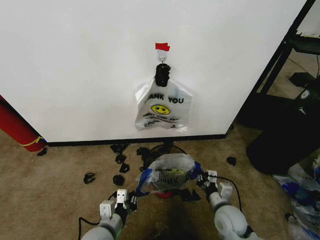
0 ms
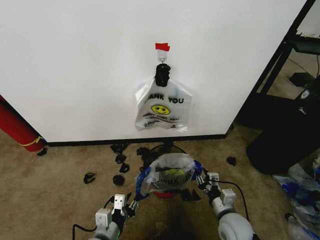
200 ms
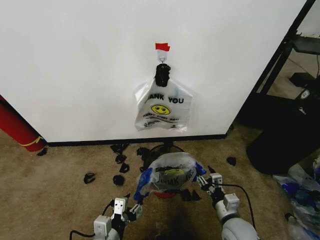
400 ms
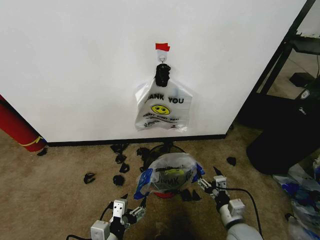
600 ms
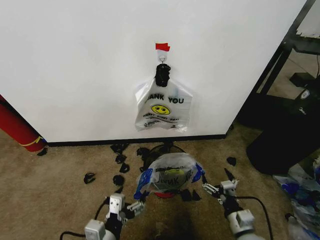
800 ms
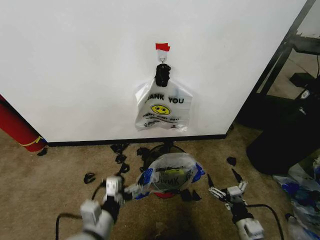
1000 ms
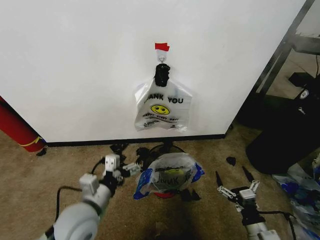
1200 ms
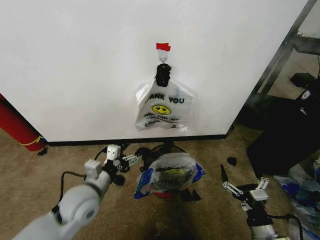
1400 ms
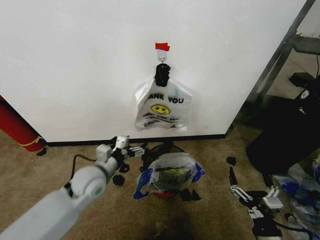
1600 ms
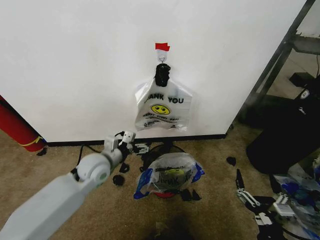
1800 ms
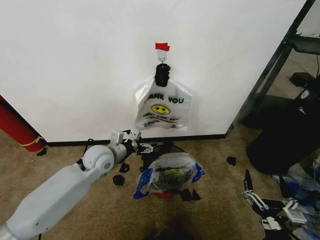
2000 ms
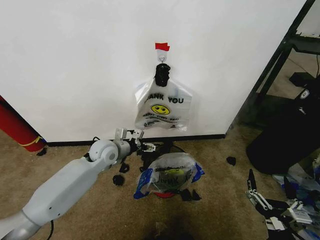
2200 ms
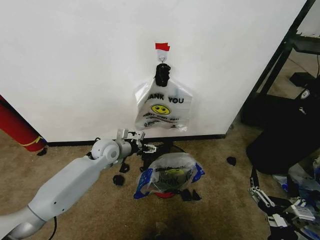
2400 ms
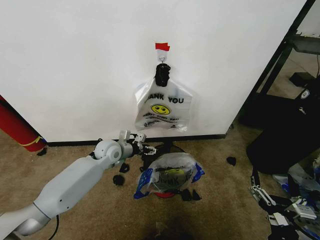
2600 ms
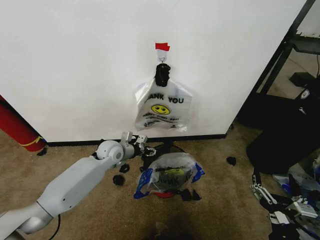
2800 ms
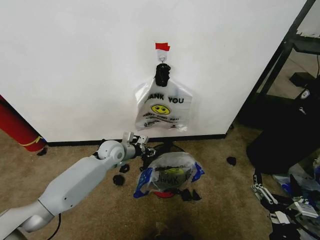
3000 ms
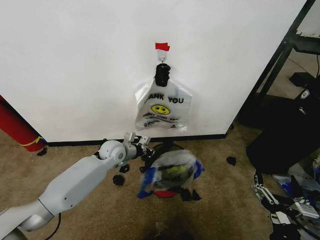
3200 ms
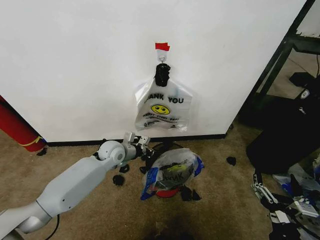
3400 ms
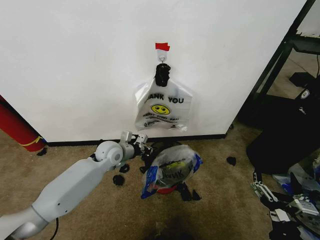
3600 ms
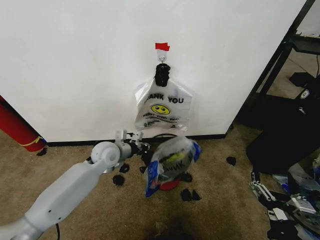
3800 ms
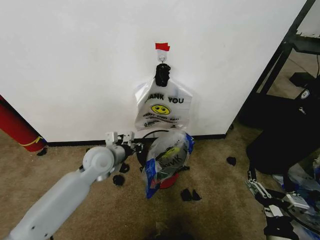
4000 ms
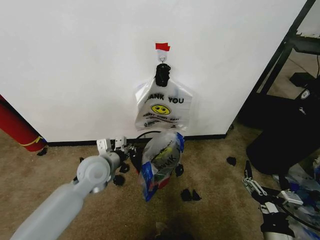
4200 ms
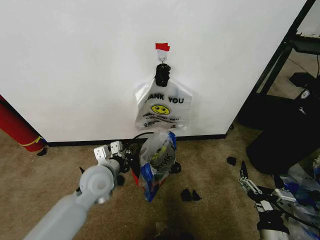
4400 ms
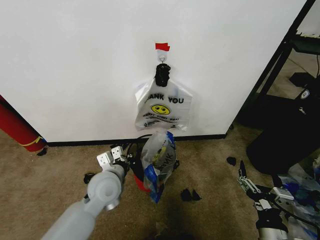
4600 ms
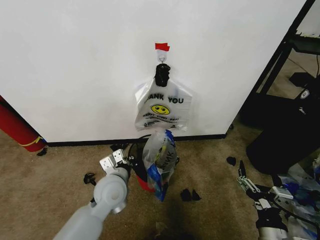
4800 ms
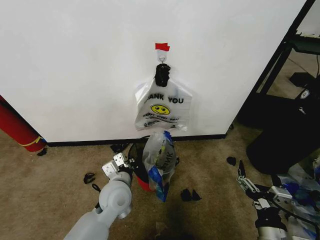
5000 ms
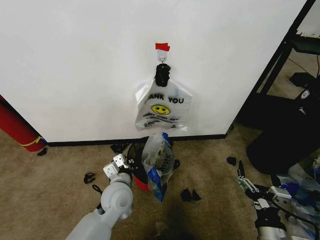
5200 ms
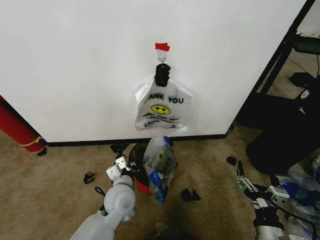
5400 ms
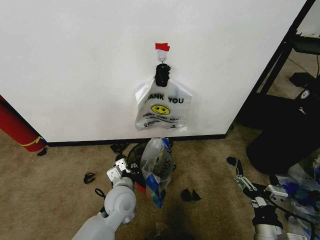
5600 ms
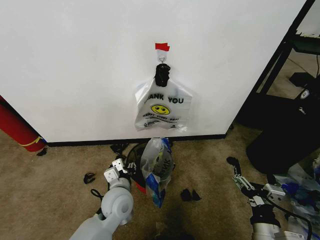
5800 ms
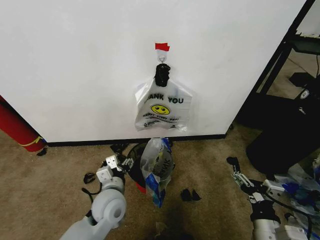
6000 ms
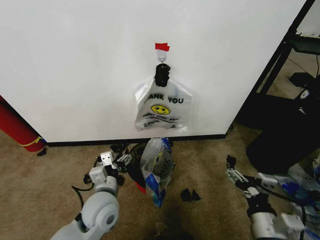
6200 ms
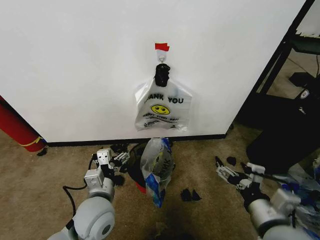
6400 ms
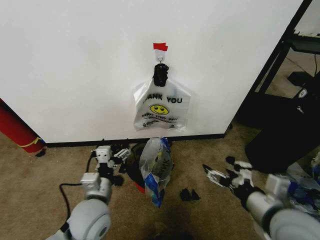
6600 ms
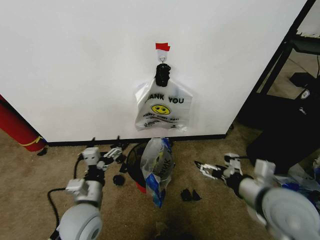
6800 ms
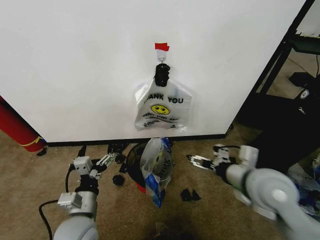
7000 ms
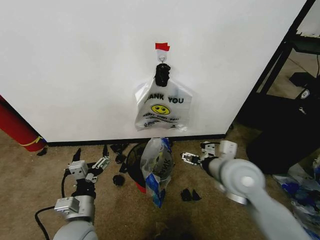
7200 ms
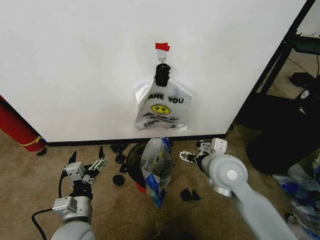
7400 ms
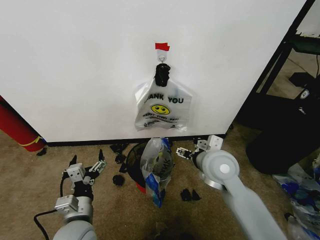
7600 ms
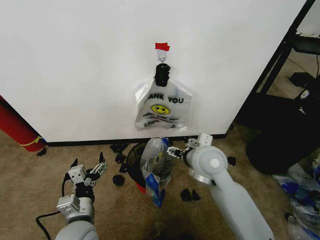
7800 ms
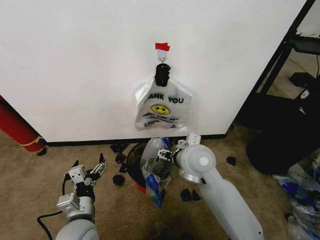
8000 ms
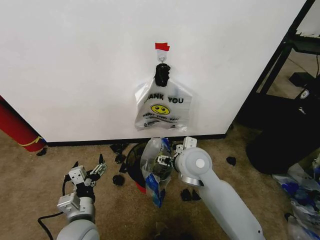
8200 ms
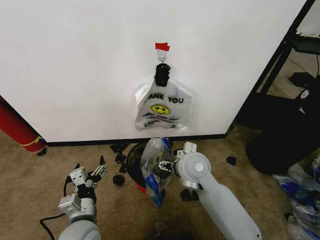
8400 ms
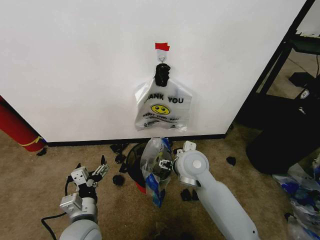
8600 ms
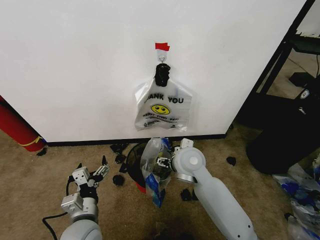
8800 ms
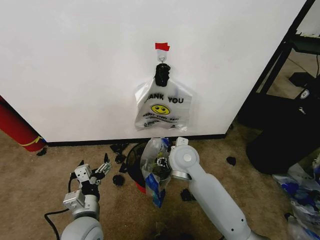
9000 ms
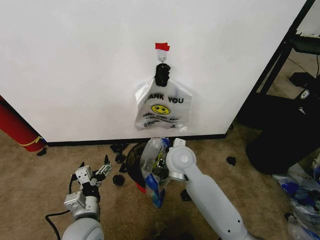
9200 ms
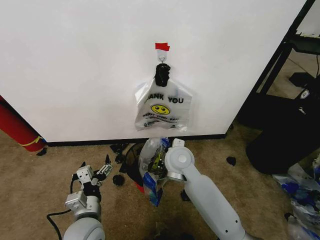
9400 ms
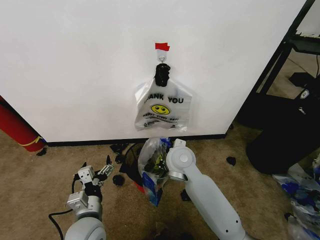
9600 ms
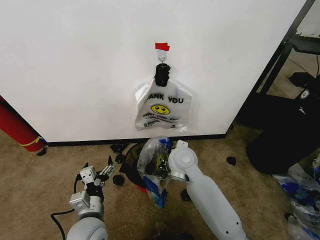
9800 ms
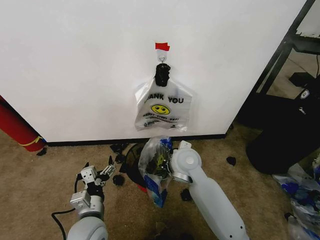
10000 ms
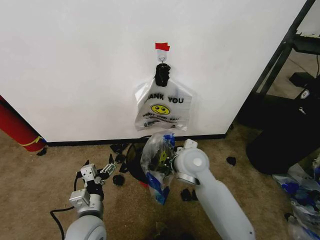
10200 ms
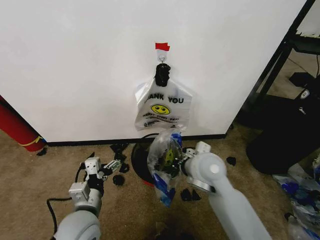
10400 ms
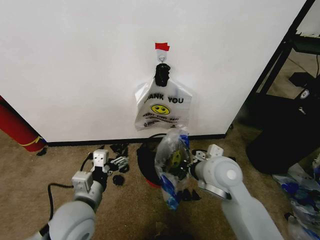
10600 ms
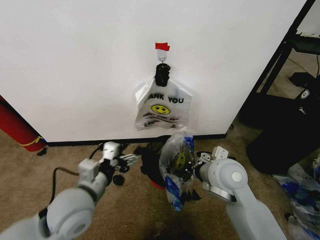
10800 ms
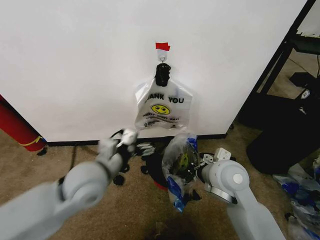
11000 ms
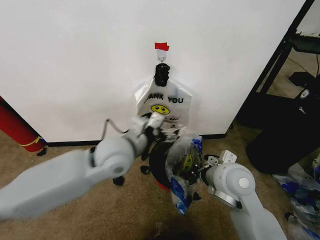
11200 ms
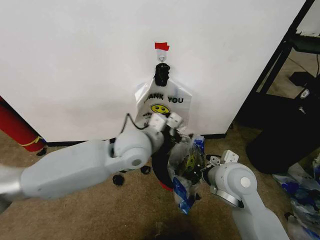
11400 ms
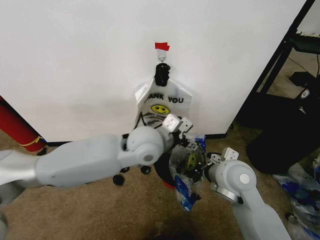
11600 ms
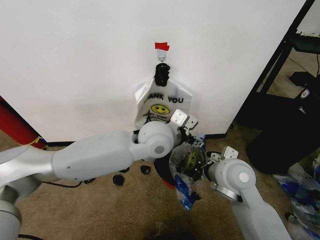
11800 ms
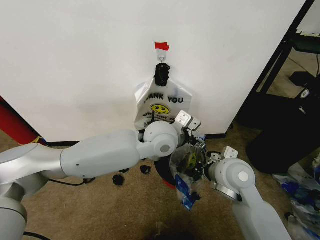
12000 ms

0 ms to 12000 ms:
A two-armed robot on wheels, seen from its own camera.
Task of the whole recording: Pick up the garbage bag from the wall and place it over the trash bin.
0 ms to 1600 ms: The right gripper heads backward, covering about 15 cm, and opens up, while the left gripper travels forward and upward by approximately 15 cm, and opens.
1600 ms to 3000 ms: The right gripper ends up approximately 5 cm from where it was. The left gripper is displaced forward by about 15 cm, and closes up.
3000 ms to 4400 ms: The left gripper moves backward, about 15 cm.
4400 ms to 6000 ms: The left gripper travels backward and downward by some 10 cm, and opens.
6000 ms to 7600 ms: The right gripper heads forward, upward and to the left, covering some 25 cm, while the left gripper heads backward and to the left, covering some 10 cm.
7600 ms to 9000 ms: The right gripper travels to the left by approximately 10 cm.
9000 ms to 10400 ms: The right gripper shifts some 5 cm to the right, and closes up.
10400 ms to 12000 ms: The left gripper is displaced to the right, forward and upward by some 30 cm, while the right gripper is displaced to the right by approximately 5 cm.

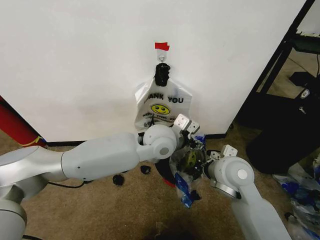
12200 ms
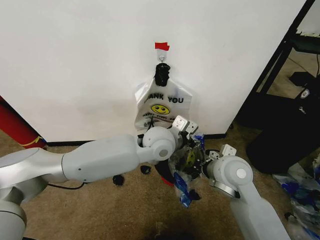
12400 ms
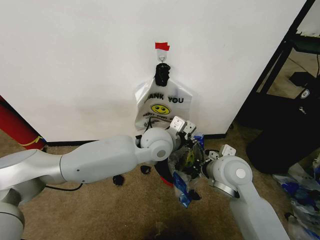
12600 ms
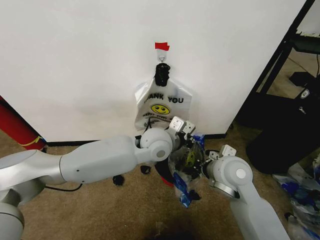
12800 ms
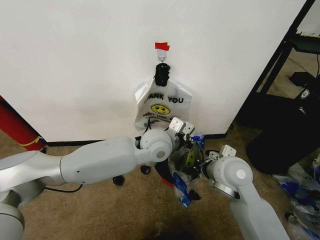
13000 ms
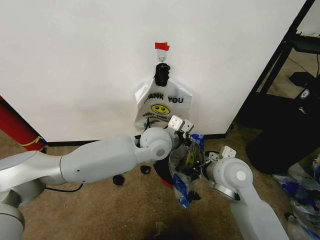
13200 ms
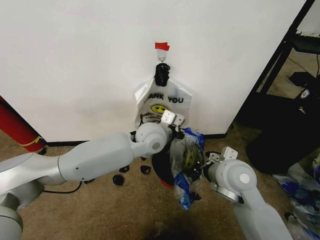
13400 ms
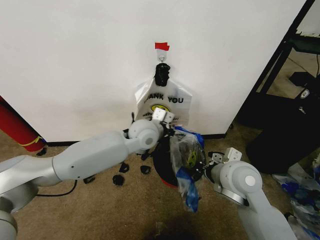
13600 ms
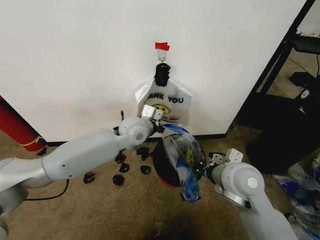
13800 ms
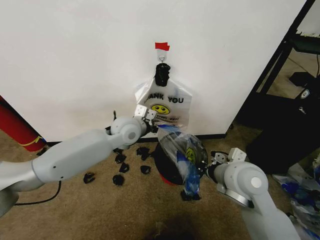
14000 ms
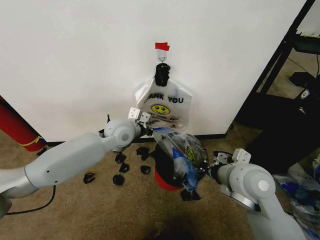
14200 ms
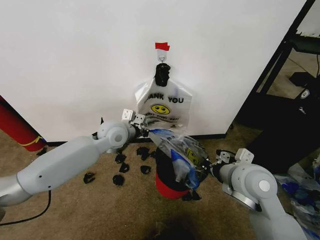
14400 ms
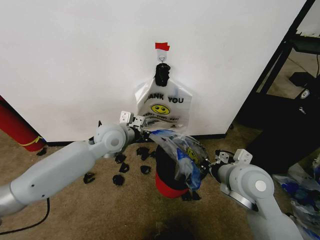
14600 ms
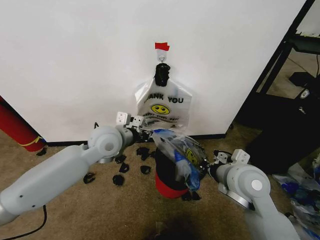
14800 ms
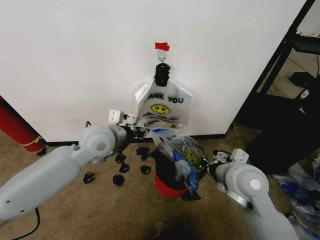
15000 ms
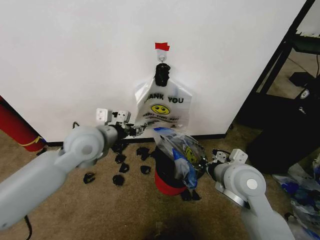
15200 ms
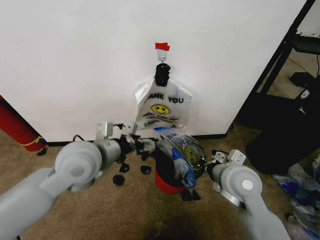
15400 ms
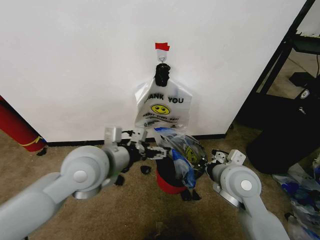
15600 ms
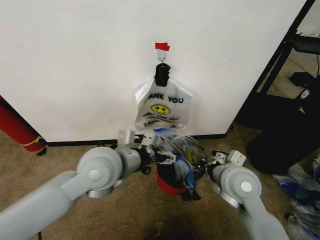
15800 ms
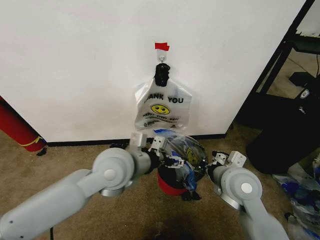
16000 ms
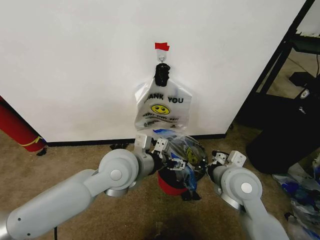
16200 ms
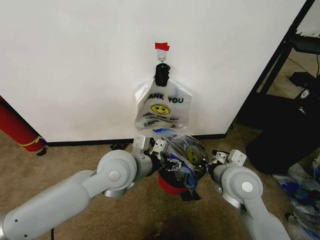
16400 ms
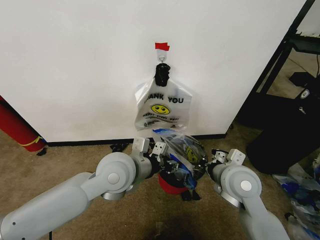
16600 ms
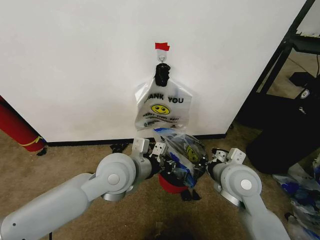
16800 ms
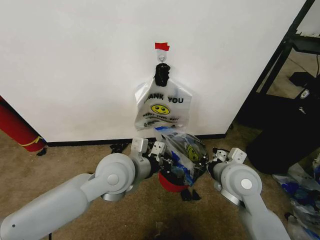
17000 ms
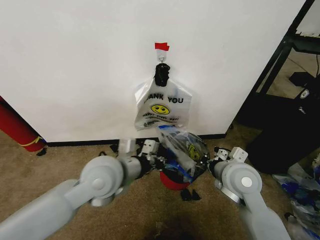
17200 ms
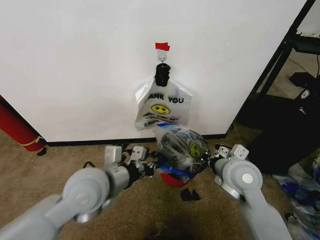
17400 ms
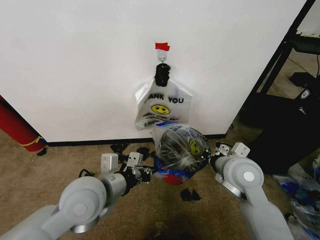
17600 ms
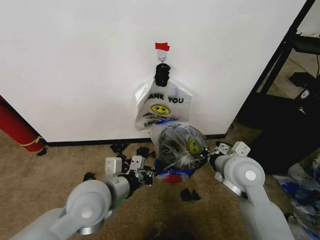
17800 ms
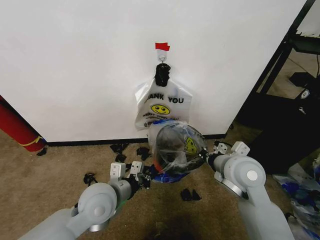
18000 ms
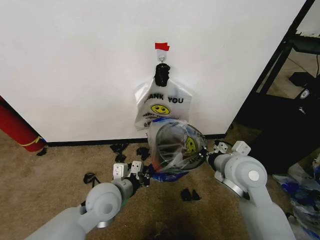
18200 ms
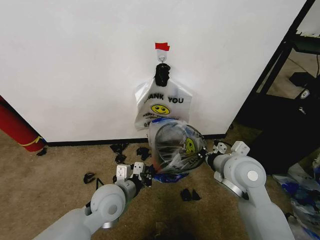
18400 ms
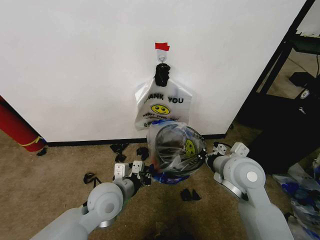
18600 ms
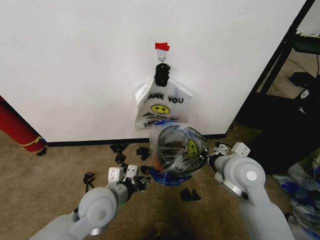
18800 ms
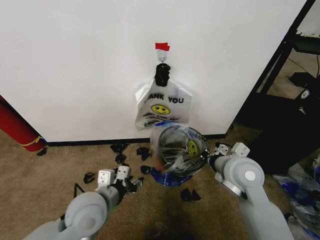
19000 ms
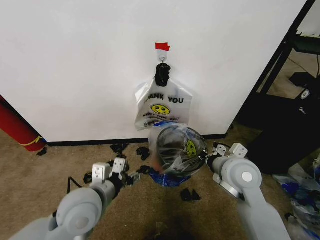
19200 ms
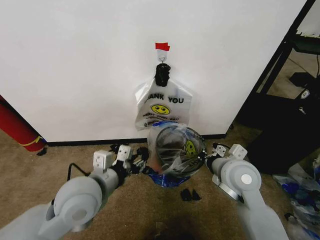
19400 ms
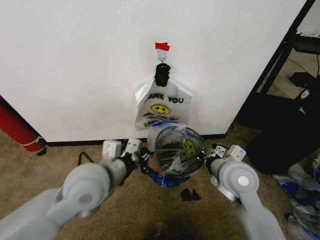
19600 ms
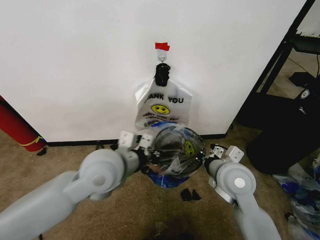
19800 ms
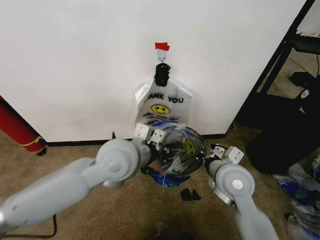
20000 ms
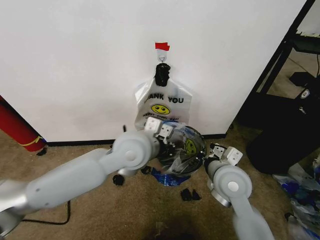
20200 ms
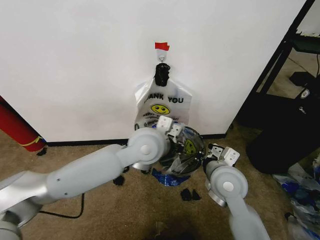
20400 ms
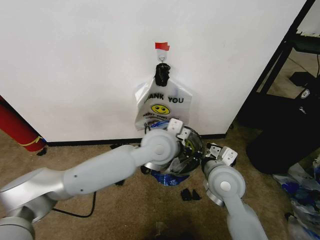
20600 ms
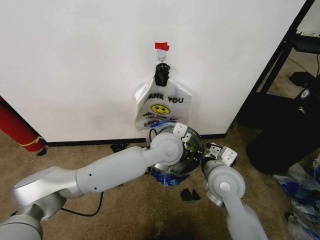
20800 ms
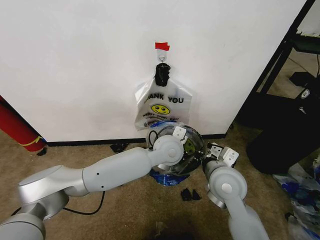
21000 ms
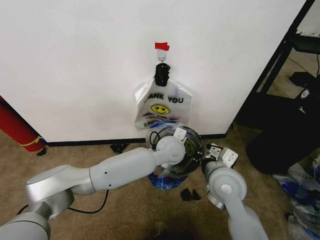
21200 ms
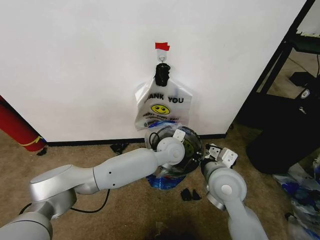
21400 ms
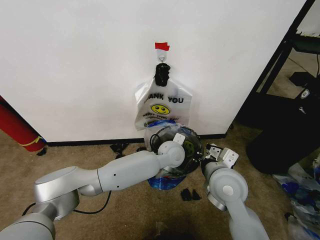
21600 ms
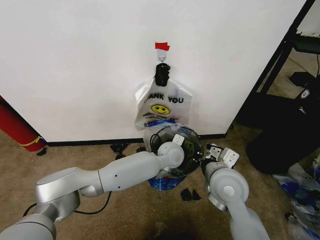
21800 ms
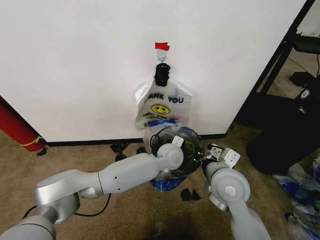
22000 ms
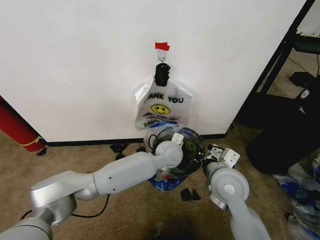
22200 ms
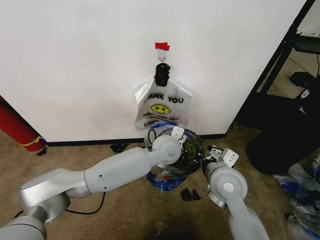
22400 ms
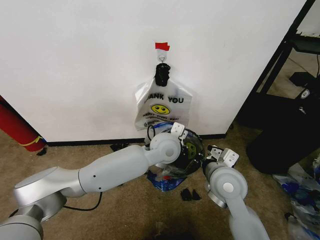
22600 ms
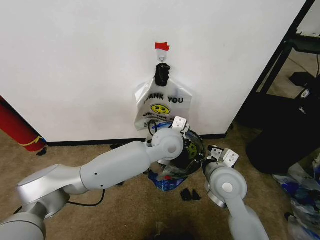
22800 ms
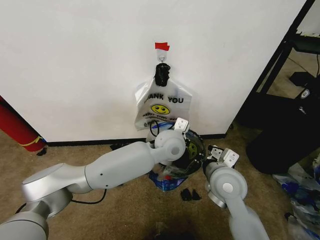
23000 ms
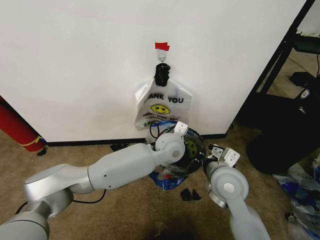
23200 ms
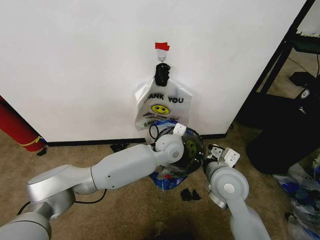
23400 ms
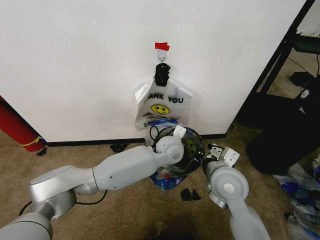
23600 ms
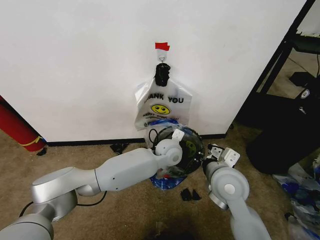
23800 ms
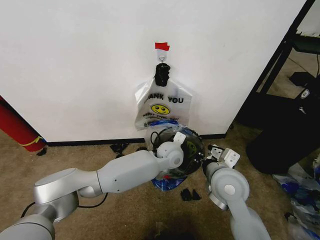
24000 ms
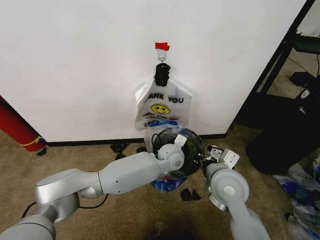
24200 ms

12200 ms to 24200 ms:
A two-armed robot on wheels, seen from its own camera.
Task of the whole recording: Pick up the garbage bag from the wall and place it over the trash bin.
12200 ms to 13800 ms: The left gripper moves to the left and forward, roughly 10 cm, and closes up.
13800 ms to 15200 ms: The left gripper shifts some 15 cm to the left and backward, and opens.
15200 ms to 16600 ms: The left gripper shifts roughly 10 cm to the right and backward, and opens, then closes once more.
16600 ms to 18200 ms: The left gripper travels downward by approximately 10 cm, and closes.
18200 ms to 19800 ms: The left gripper is displaced upward by roughly 15 cm, and opens, then closes once more.
19800 ms to 21200 ms: The left gripper heads to the right, forward and downward, covering approximately 25 cm.
21200 ms to 22600 ms: There are only small adjustments of the grippers.
22600 ms to 24200 ms: The left gripper shifts roughly 10 cm downward.
